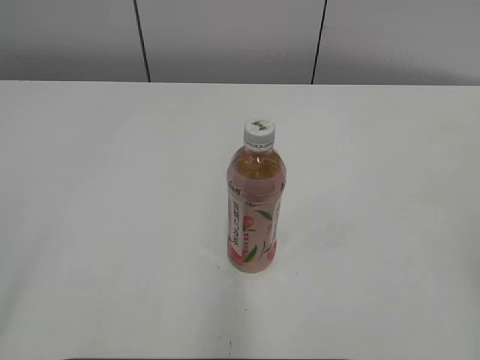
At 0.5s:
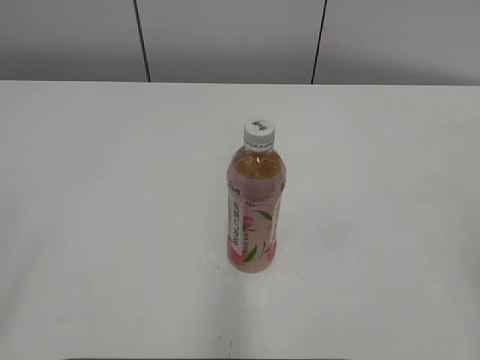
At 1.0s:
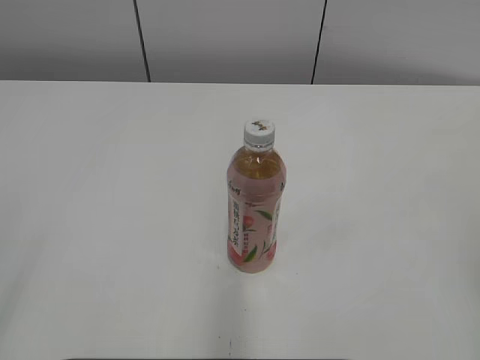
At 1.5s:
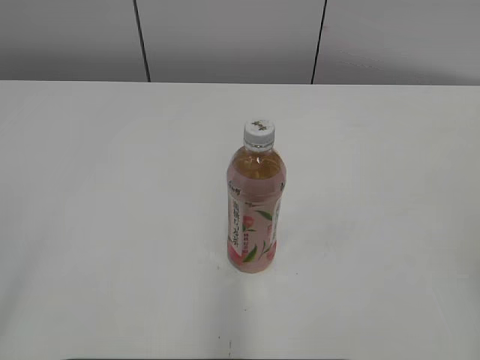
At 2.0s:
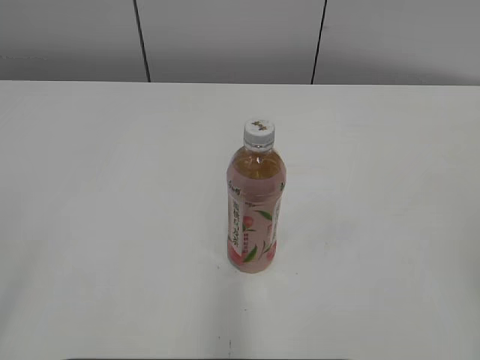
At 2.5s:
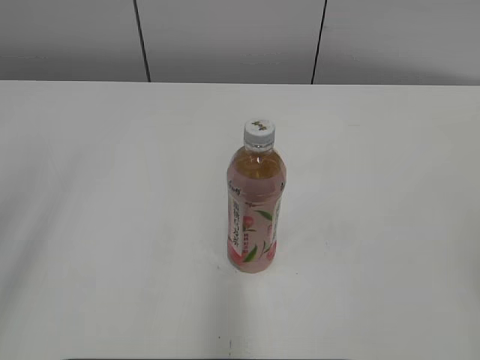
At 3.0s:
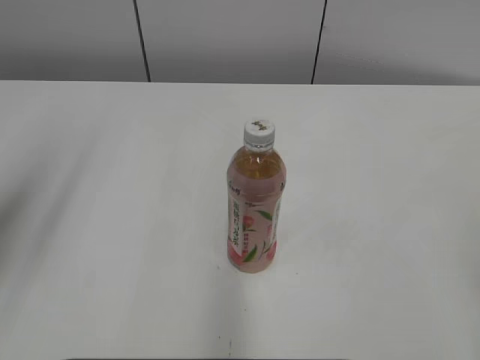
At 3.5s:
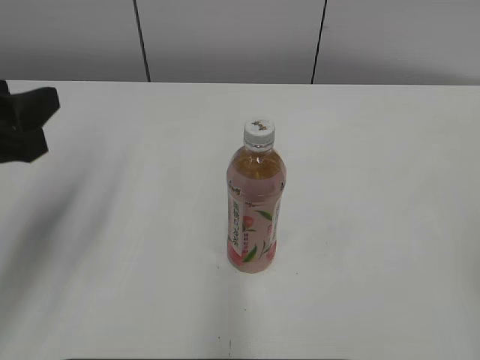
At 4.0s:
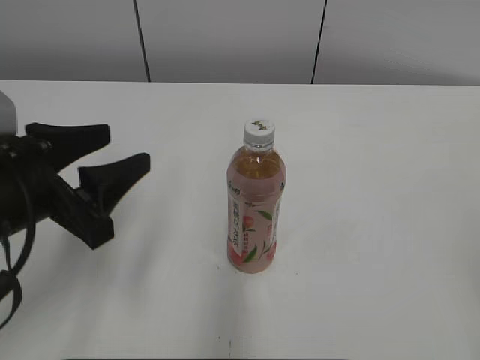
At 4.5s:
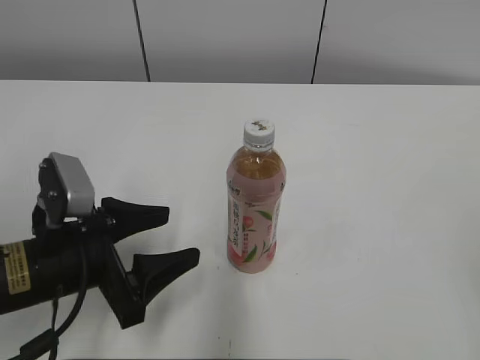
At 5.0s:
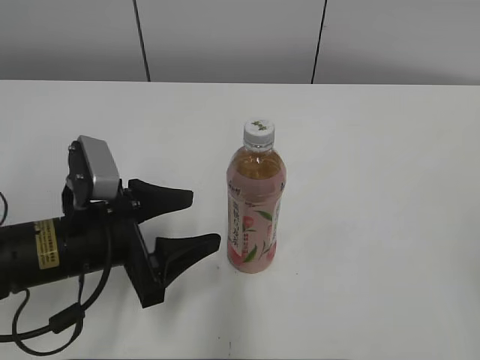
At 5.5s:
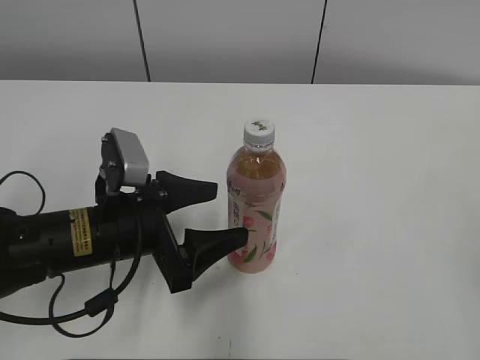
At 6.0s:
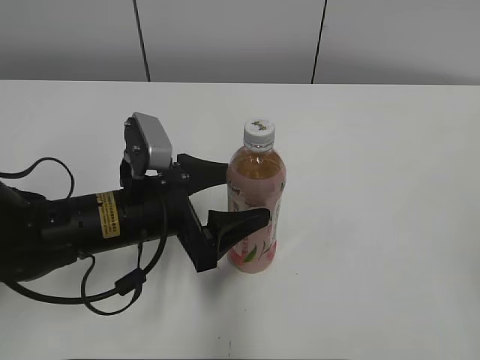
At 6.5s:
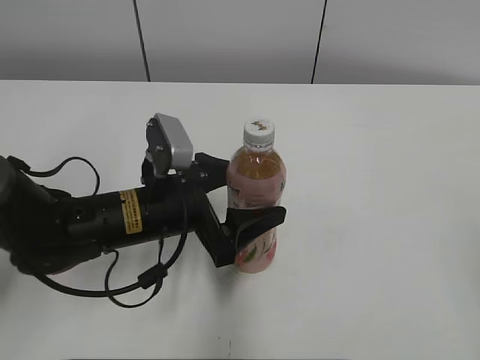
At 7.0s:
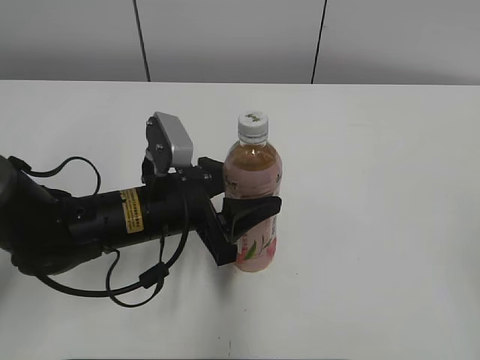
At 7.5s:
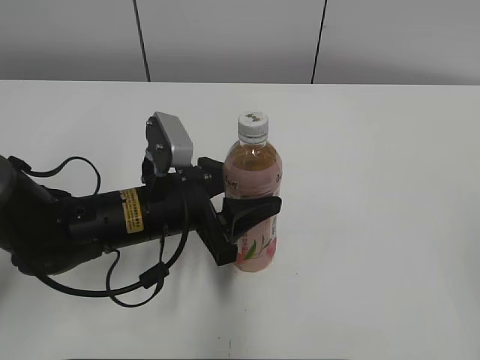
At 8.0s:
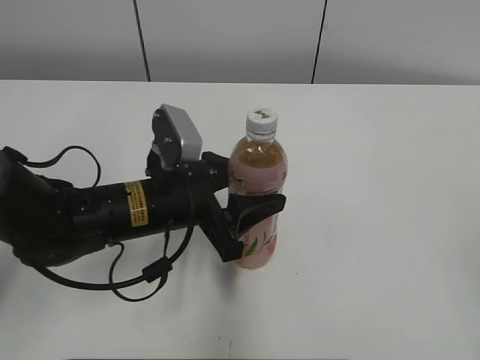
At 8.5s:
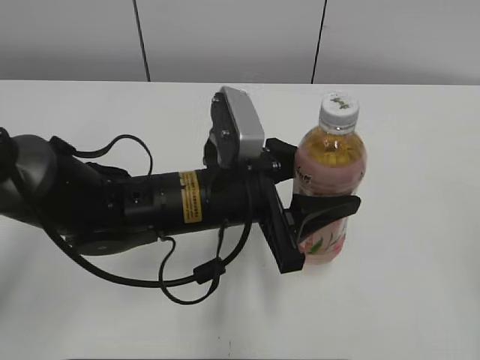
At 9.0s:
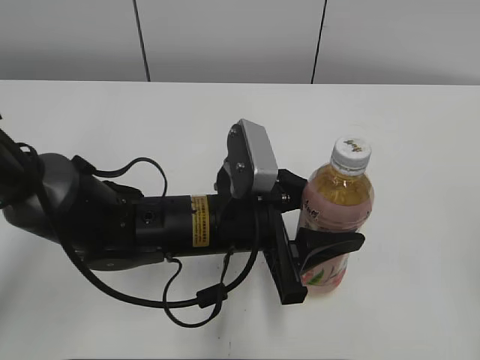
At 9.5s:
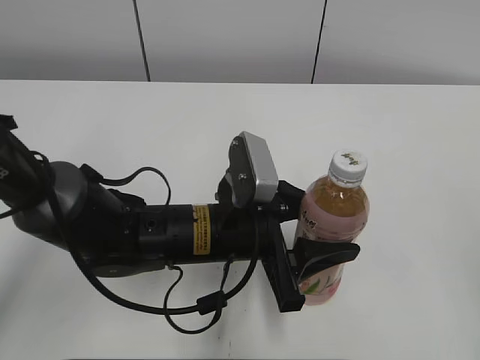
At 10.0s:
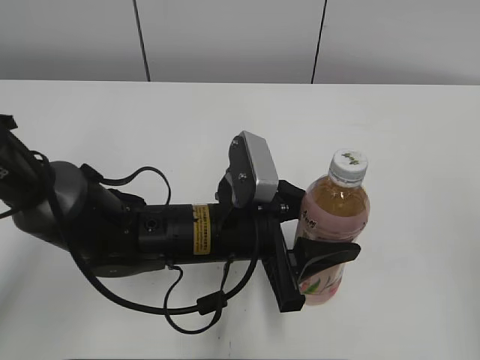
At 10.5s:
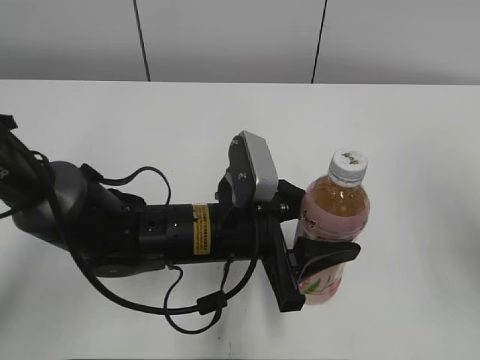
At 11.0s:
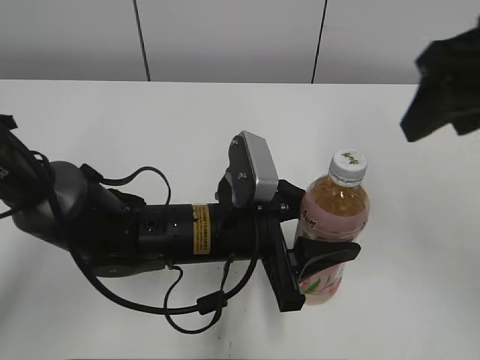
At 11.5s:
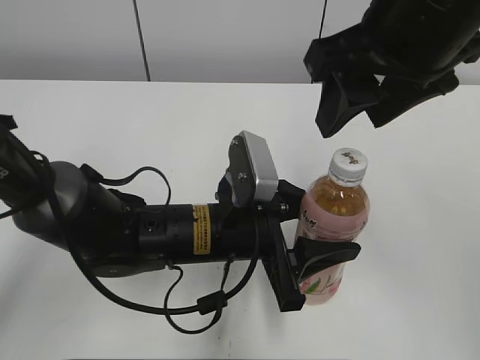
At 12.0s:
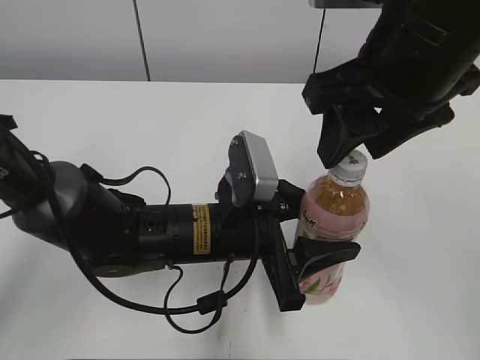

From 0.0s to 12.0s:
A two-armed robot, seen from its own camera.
Step, from 0.0s to 6.5s: Grab the Peach Oolong Tea with the left hand.
Step, from 7.5s to 11.5s: Lift the Peach Oolong Tea with the left hand.
From 2.0s to 4.0s: The left gripper travels forward, to the right and downward by approximately 25 cm.
From 4.0s to 6.0s: The left gripper goes some 15 cm to the right, downward and forward, and opens its fingers.
From 6.0s to 8.0s: The left gripper closes its fingers.
From 8.0s to 10.0s: The left gripper travels to the right by roughly 5 cm.
From 10.0s to 12.0s: The right gripper travels forward and to the left by some 25 cm.

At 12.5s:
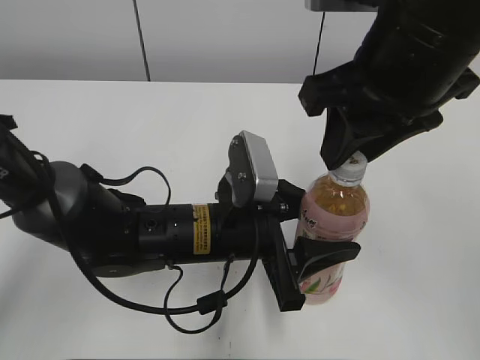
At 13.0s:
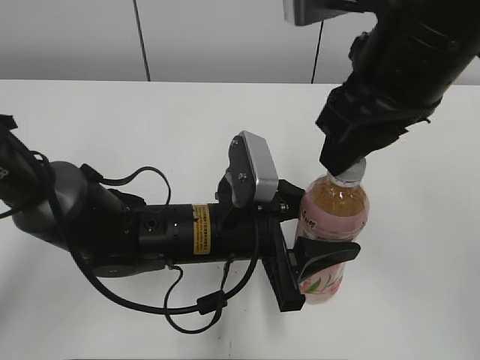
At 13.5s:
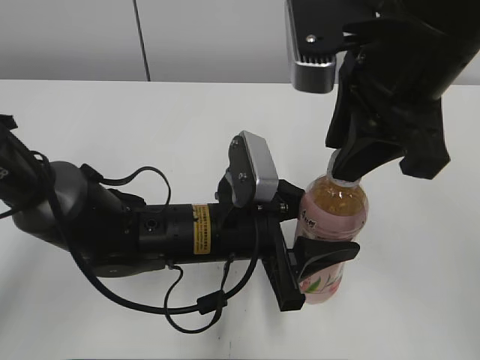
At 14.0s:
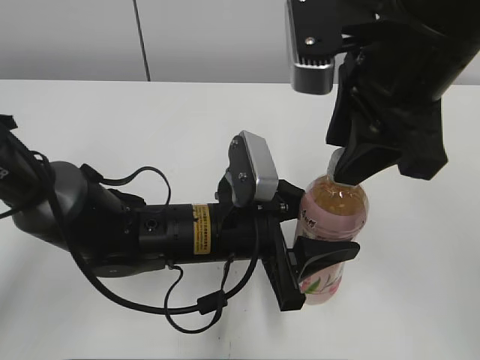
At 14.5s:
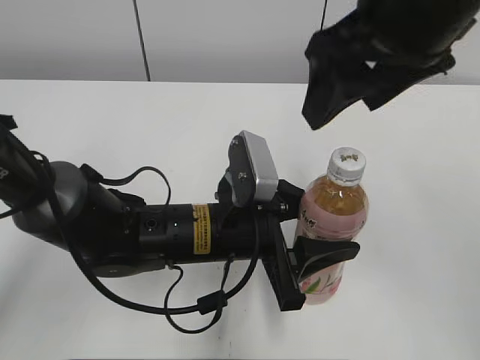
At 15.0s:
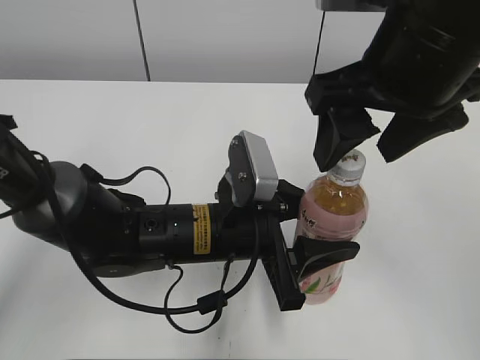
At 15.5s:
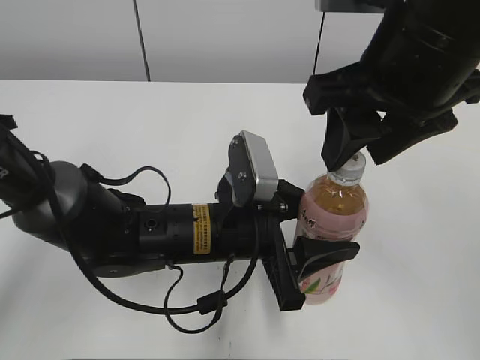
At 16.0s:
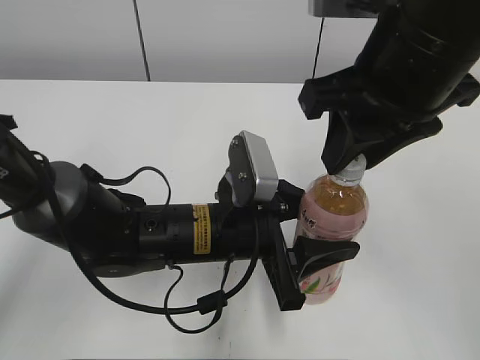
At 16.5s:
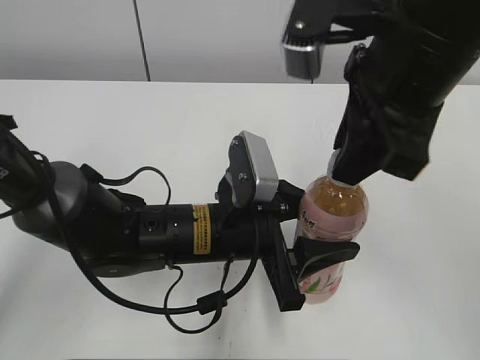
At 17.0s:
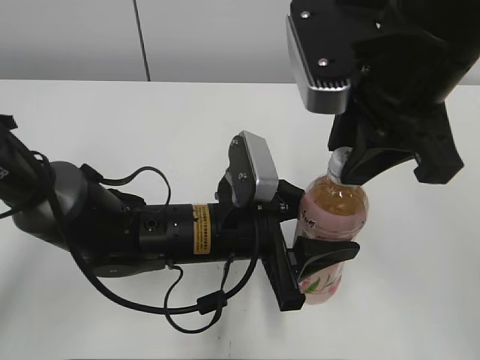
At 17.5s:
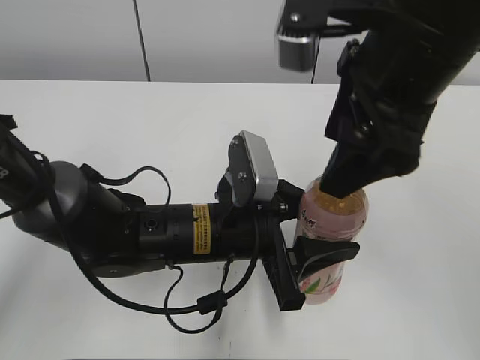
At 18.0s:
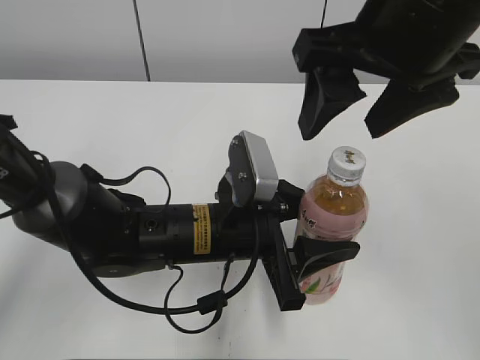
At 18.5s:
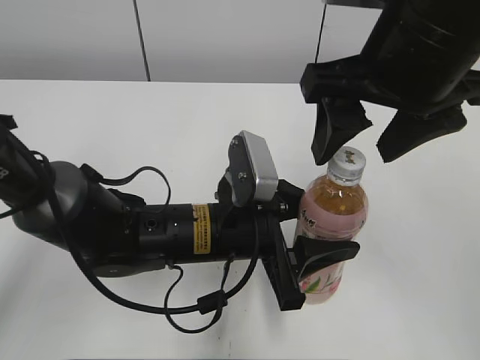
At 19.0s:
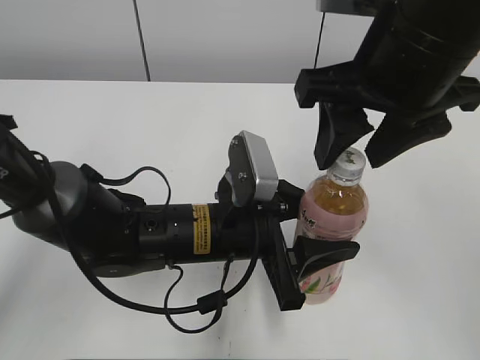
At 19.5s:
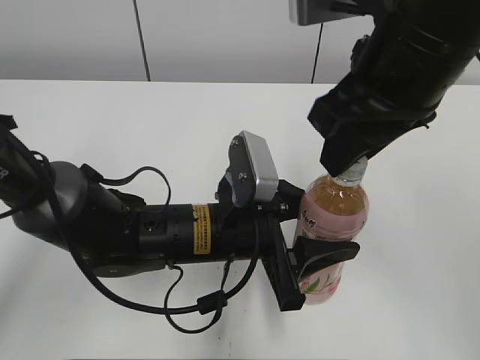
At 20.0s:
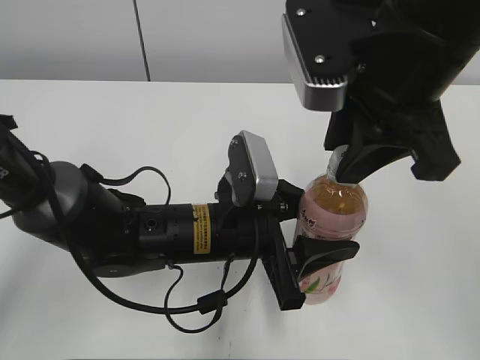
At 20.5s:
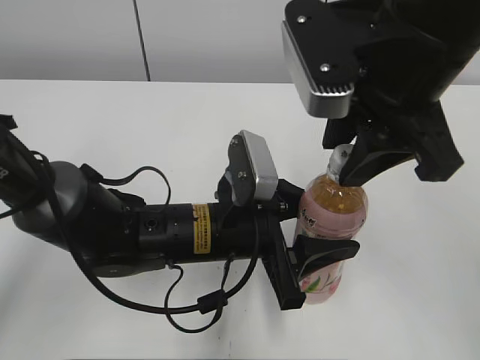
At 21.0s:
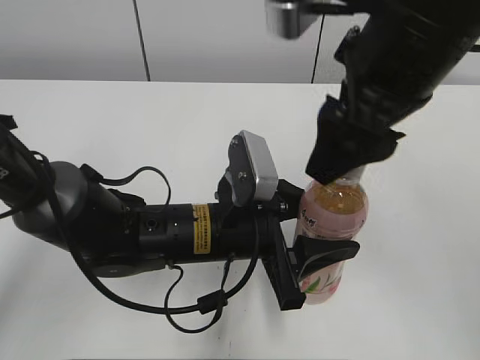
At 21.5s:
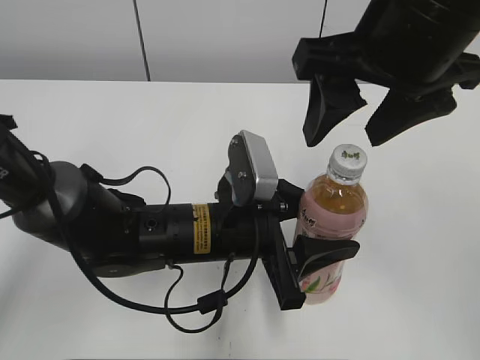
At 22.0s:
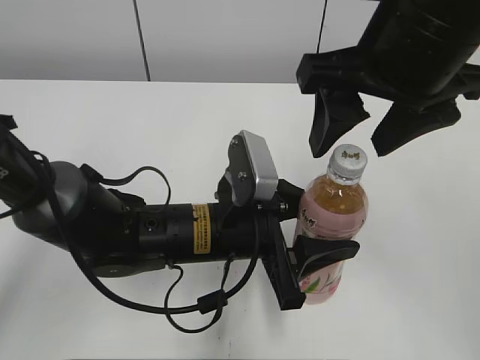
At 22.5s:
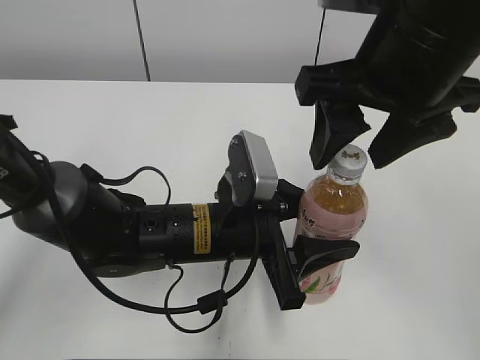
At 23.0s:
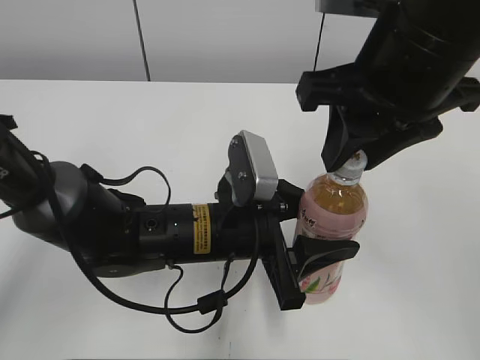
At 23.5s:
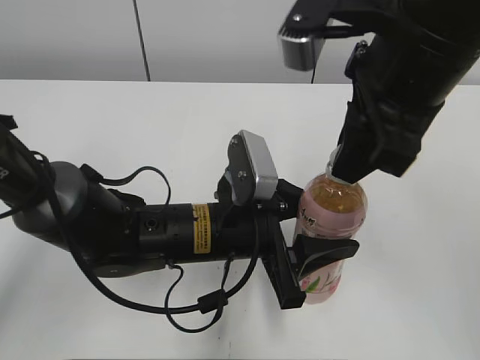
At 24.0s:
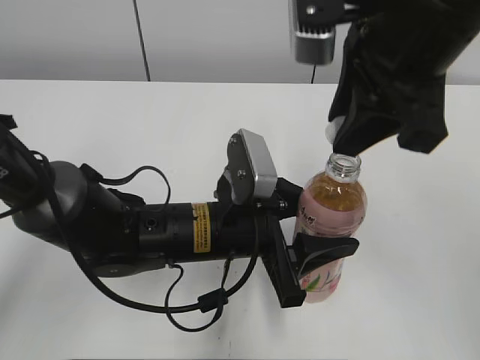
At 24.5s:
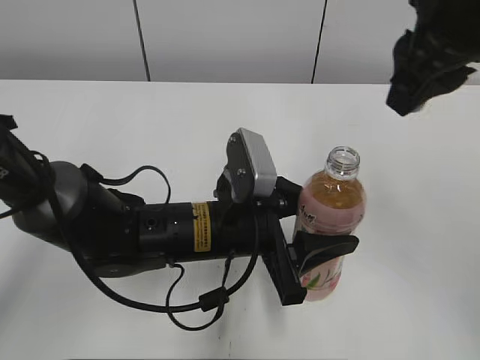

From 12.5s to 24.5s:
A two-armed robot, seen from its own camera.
From 12.5s to 14.5s: The right gripper opens.
From 14.5s to 16.5s: The right gripper closes.
From 16.5s to 18.5s: The right gripper opens its fingers.
From 18.5s to 20.5s: The right gripper closes up.
From 20.5s to 22.5s: The right gripper opens up.
From 22.5s to 24.5s: The right gripper ends up roughly 5 cm from where it was, and closes.

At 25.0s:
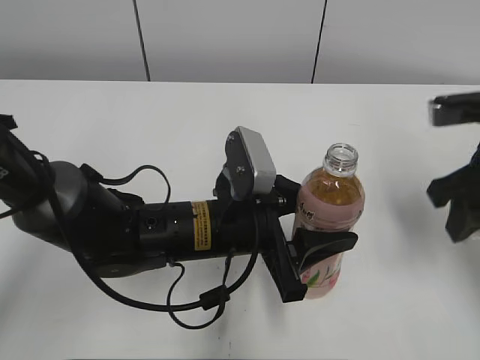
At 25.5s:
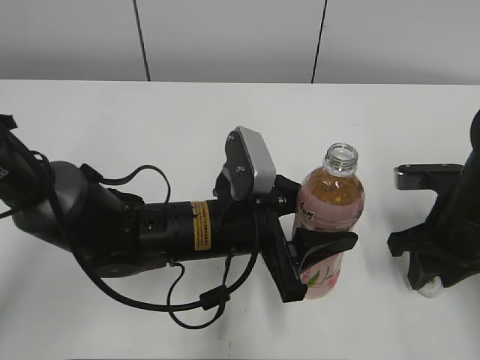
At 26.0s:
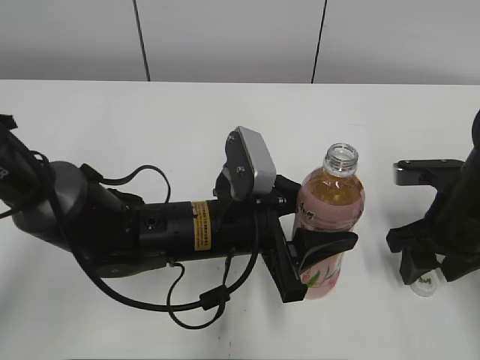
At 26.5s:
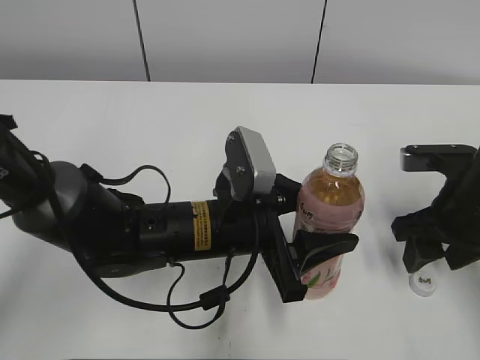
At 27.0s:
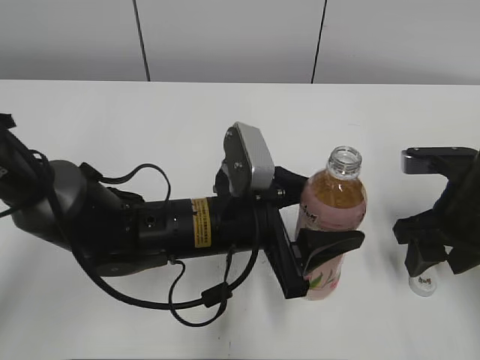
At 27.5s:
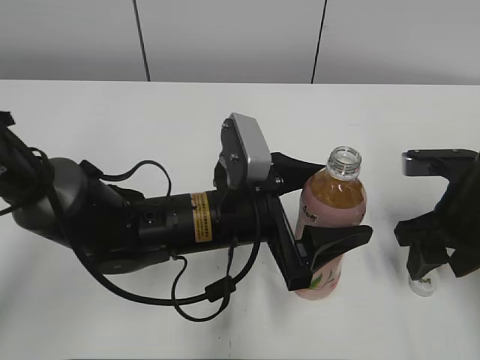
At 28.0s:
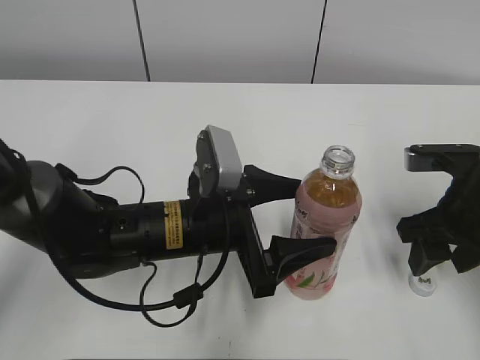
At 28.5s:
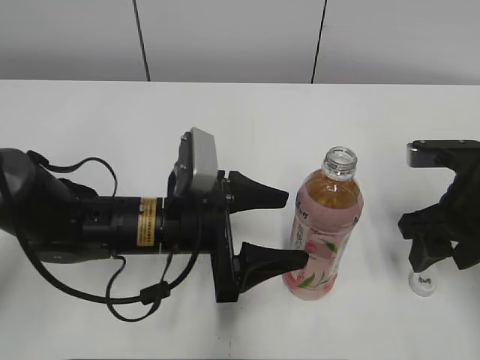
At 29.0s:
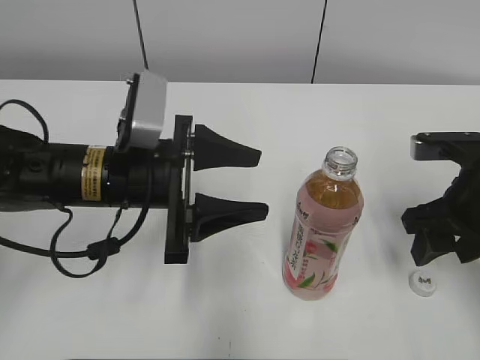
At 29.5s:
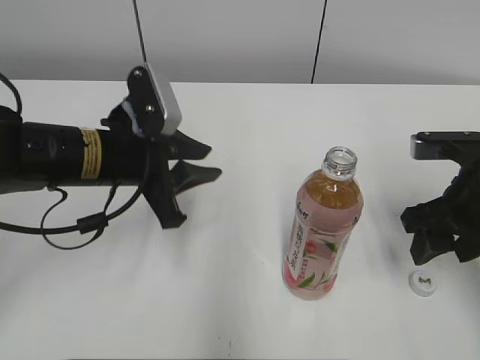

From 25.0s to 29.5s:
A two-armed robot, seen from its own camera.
Step, from 26.5s to 28.0s: Place the Peach Oolong Tea with the left hand.
From 25.0s to 27.0s: The right gripper heads downward, covering approximately 10 cm, and opens its fingers.
From 27.0s to 29.5s: The left gripper heads to the left and upward, covering roughly 15 cm, and closes up.
